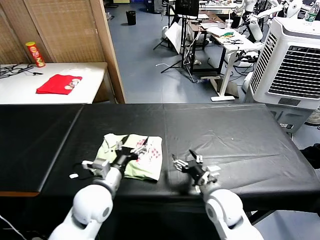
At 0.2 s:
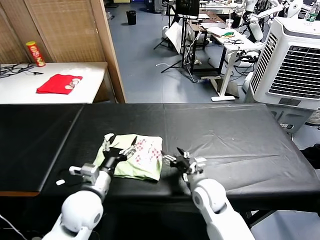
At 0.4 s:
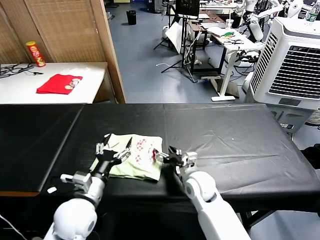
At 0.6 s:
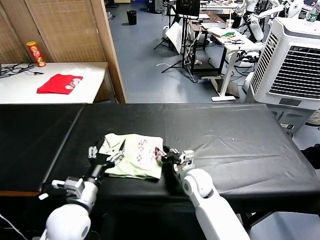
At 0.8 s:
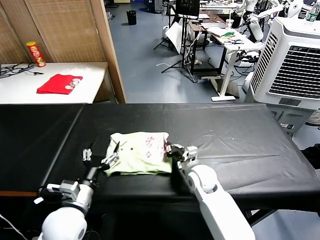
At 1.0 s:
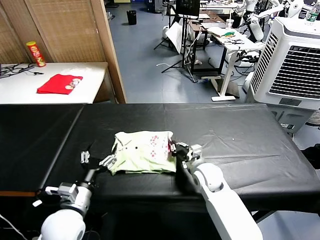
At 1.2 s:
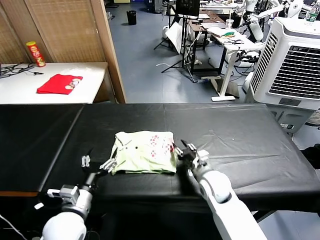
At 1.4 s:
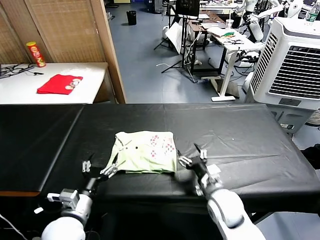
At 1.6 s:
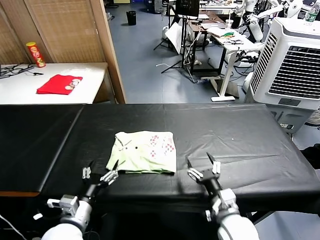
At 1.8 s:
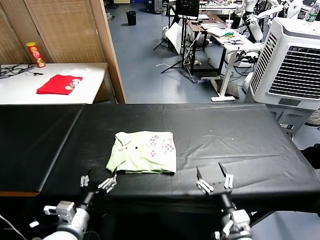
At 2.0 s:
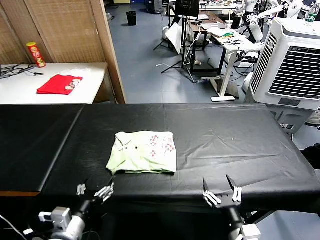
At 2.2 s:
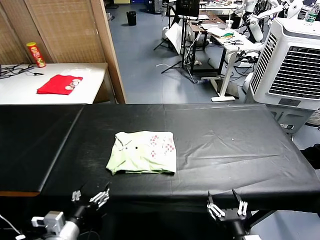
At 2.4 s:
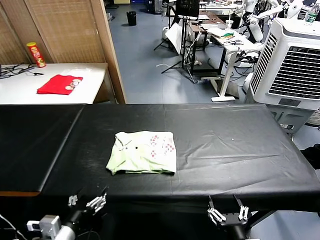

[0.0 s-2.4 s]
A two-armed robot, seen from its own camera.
Task of the whole recording: fold and organize the clothes.
Step, 0.0 to 1.0 s: Drag the clothes to the center of the table.
0.0 to 1.2 s: The right gripper travels forward by approximately 10 cm, and closes up. Meanwhile the left gripper heads to the left and backward, covering about 10 cm.
1.2 to 2.4 s: The right gripper heads backward, covering approximately 30 cm, and opens; the left gripper is displaced backward by approximately 10 cm.
